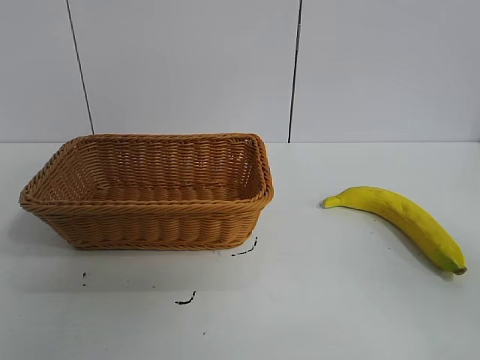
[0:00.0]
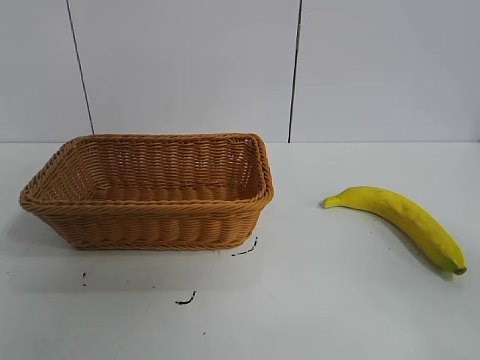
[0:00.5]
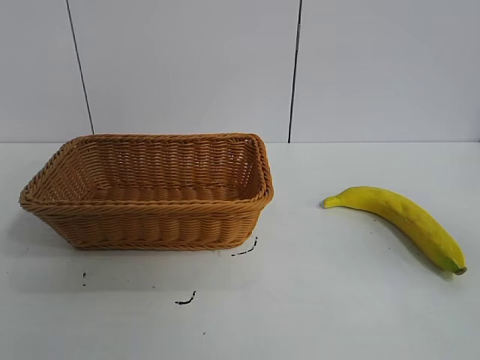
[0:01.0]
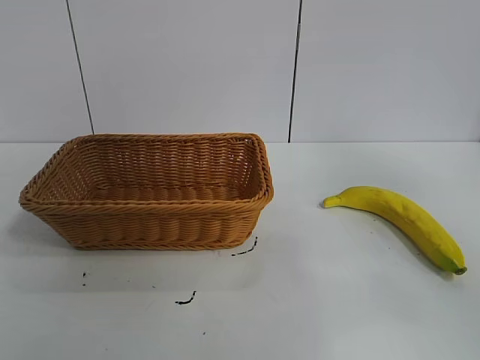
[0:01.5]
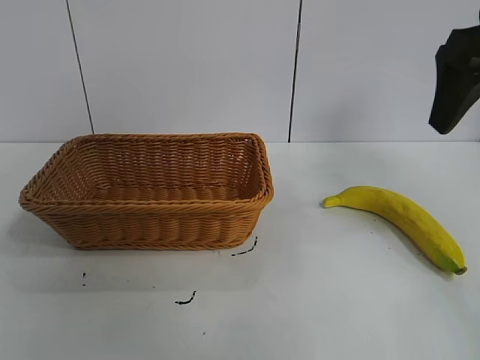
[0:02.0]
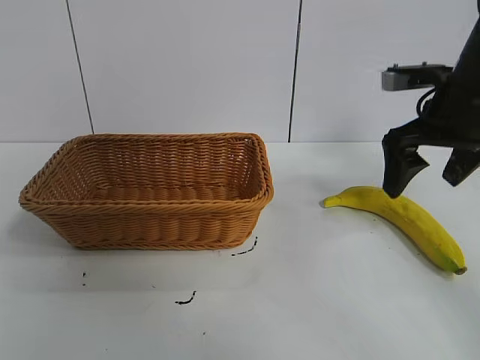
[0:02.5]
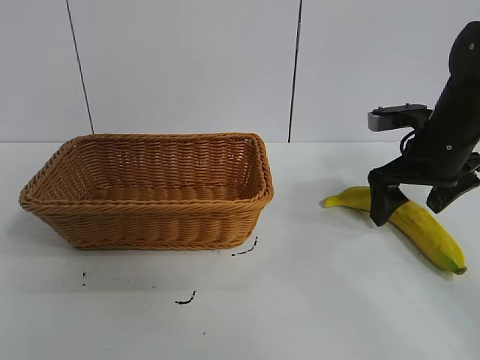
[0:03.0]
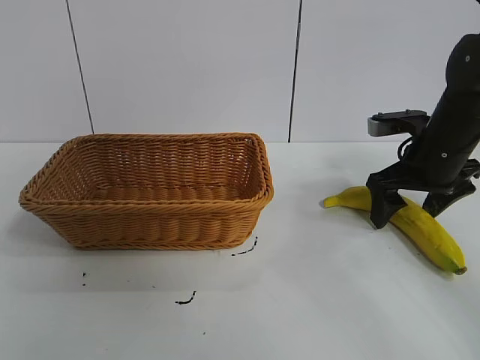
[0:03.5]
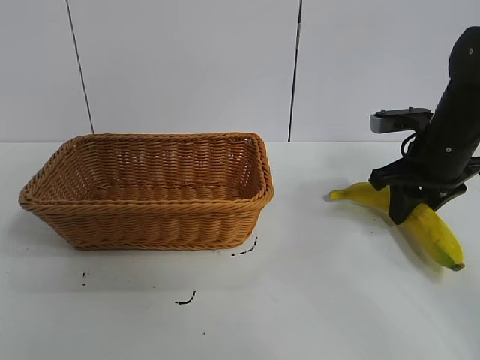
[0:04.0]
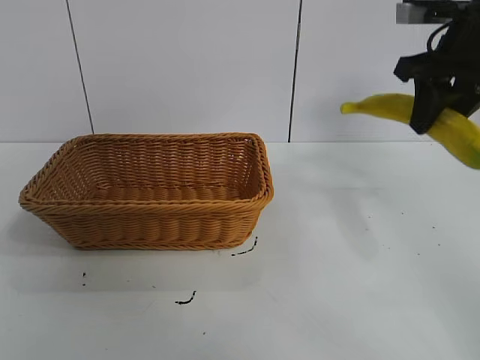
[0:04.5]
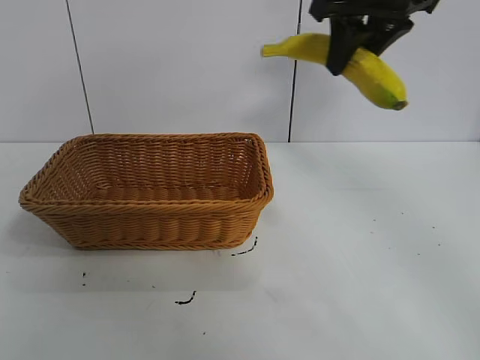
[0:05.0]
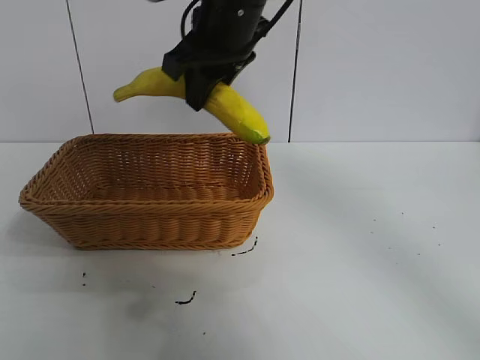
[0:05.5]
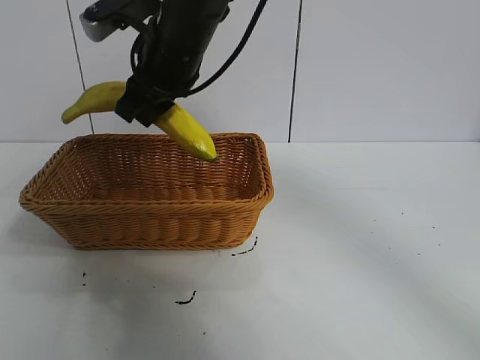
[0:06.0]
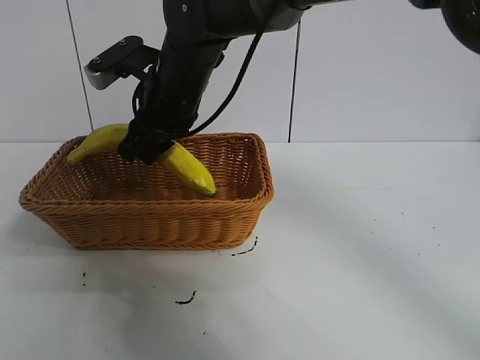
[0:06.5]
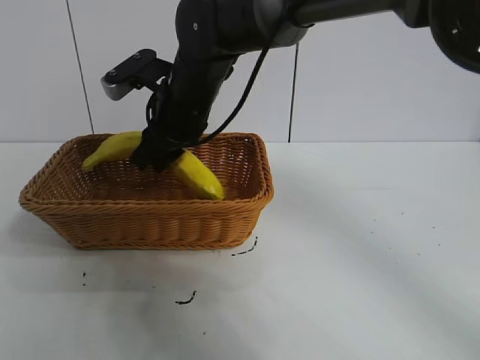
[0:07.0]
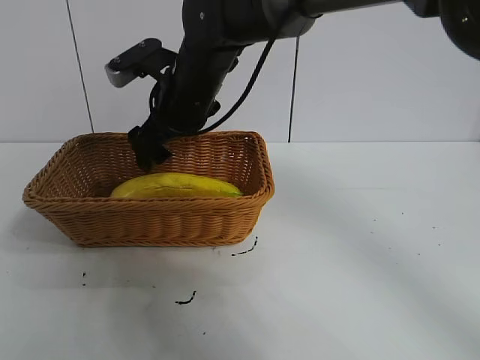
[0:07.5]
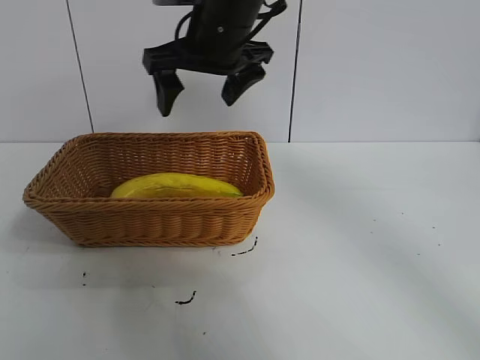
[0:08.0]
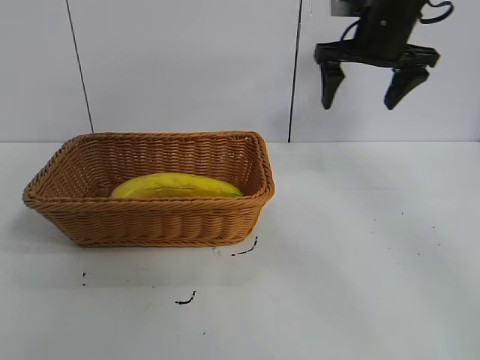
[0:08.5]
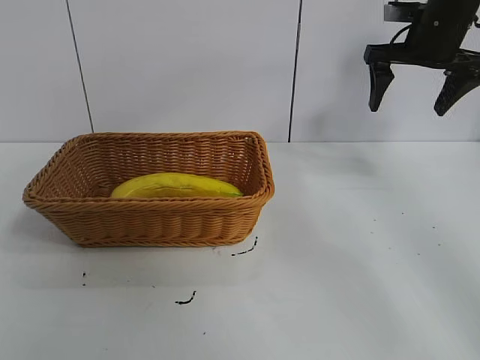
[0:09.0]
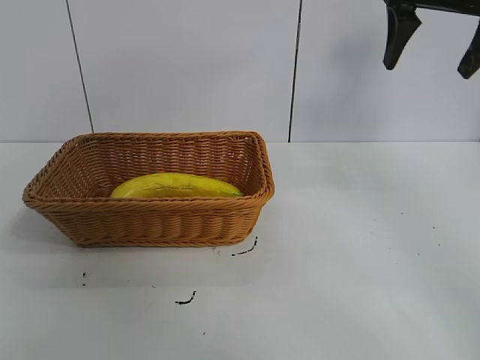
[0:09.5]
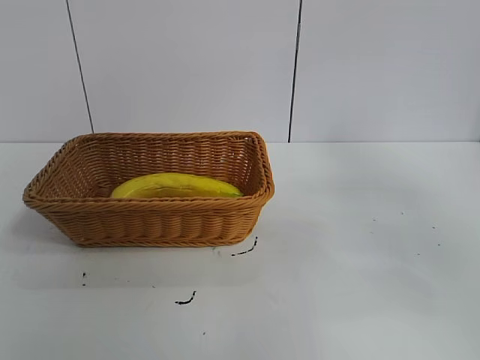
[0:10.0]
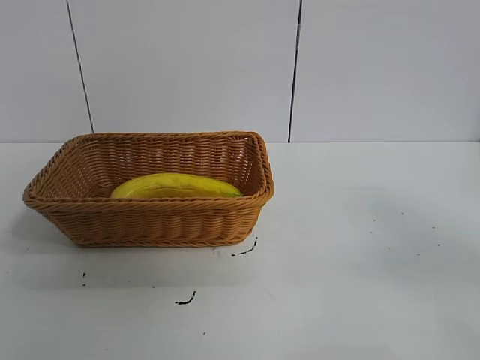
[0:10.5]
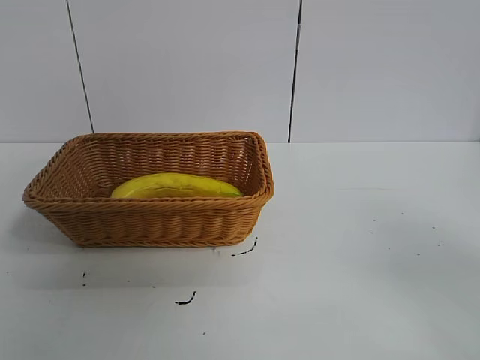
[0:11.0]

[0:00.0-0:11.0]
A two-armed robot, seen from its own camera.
Task of the whole recording: pick up the banana and put it into the basket.
Step, 0:01.0 to 0:03.5: Grasp the banana with right gripper.
Step, 0:04.0 to 0:07.5: Place the banana in the basket with right gripper.
